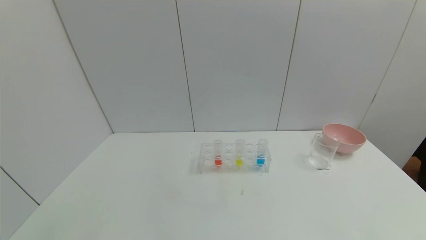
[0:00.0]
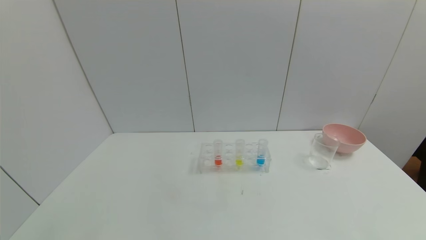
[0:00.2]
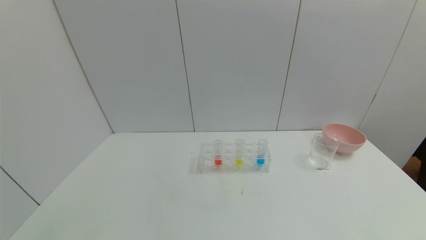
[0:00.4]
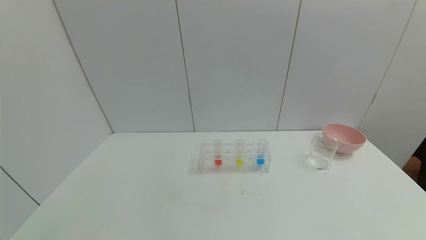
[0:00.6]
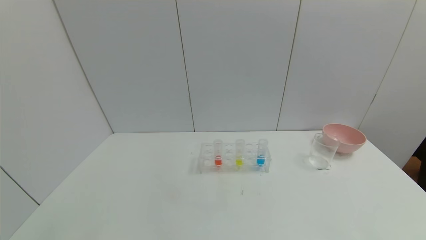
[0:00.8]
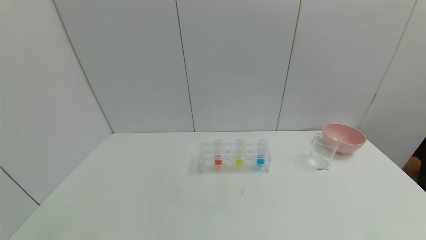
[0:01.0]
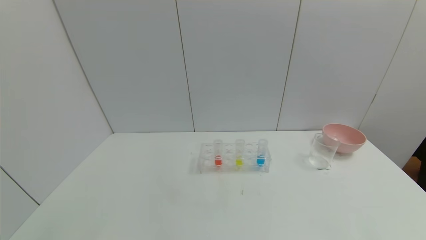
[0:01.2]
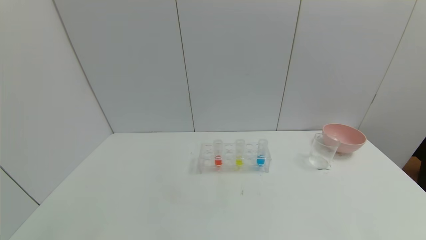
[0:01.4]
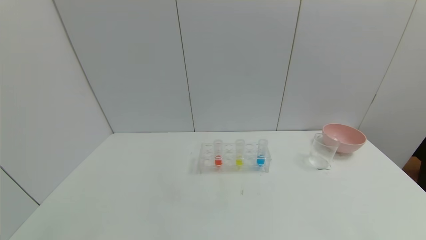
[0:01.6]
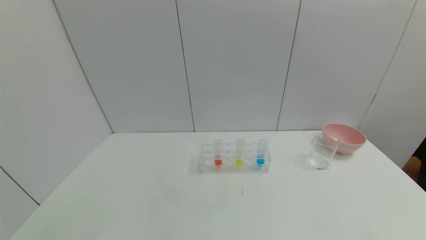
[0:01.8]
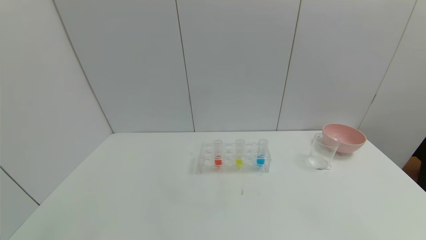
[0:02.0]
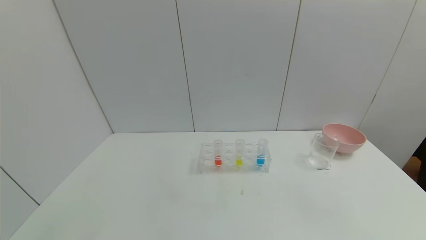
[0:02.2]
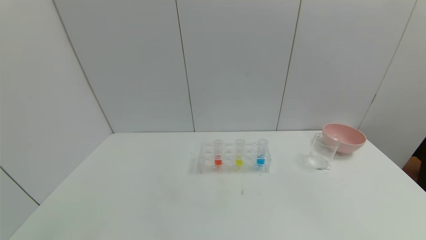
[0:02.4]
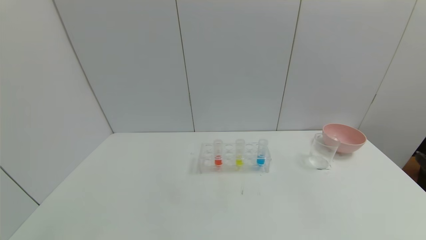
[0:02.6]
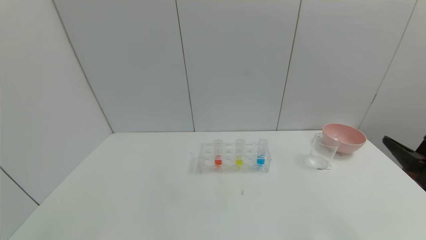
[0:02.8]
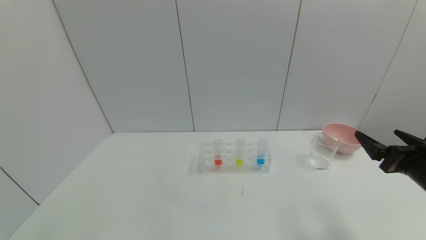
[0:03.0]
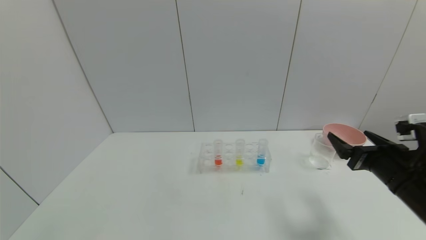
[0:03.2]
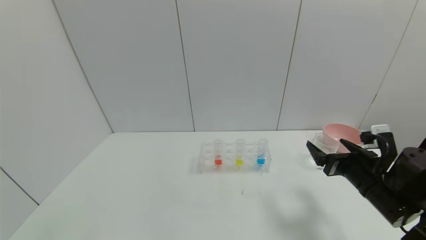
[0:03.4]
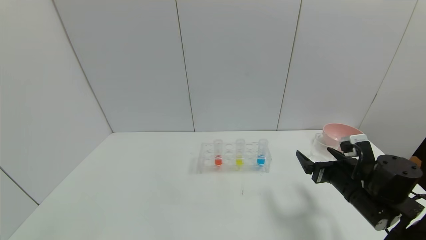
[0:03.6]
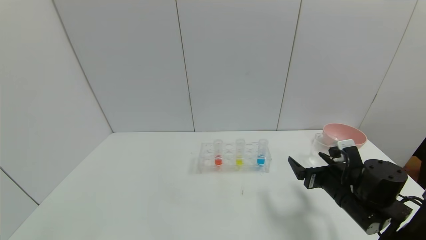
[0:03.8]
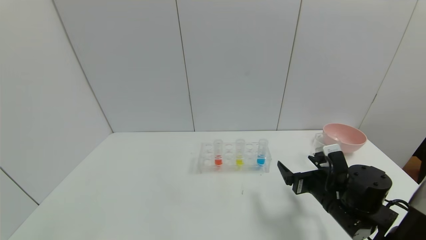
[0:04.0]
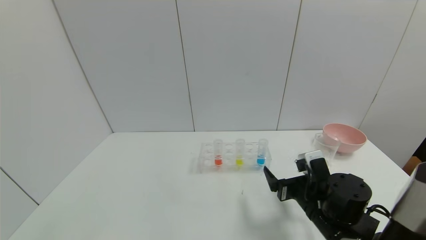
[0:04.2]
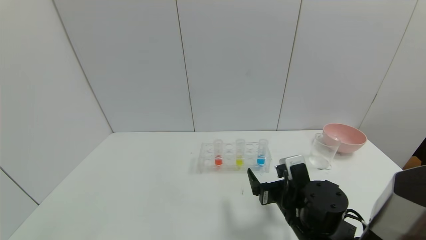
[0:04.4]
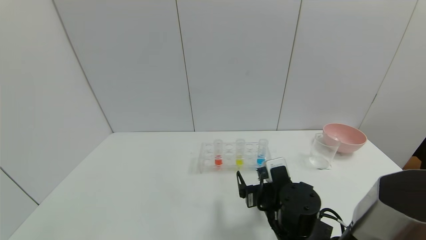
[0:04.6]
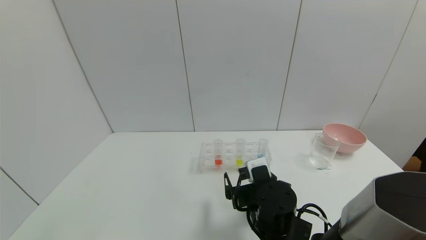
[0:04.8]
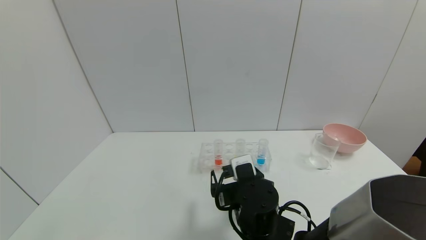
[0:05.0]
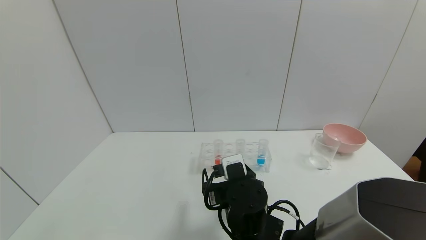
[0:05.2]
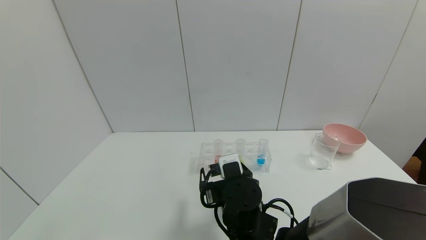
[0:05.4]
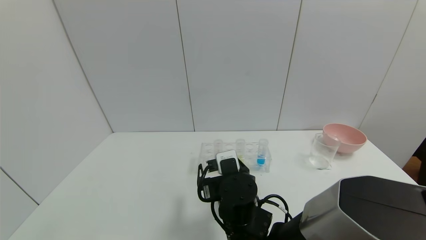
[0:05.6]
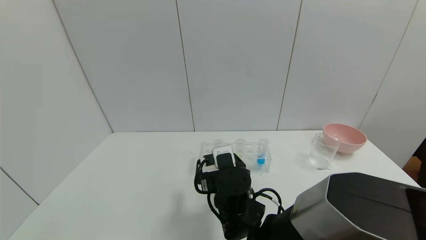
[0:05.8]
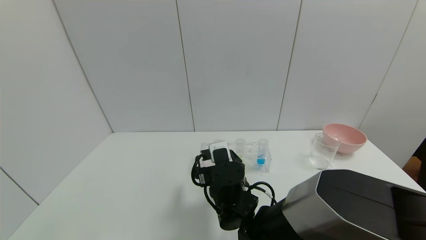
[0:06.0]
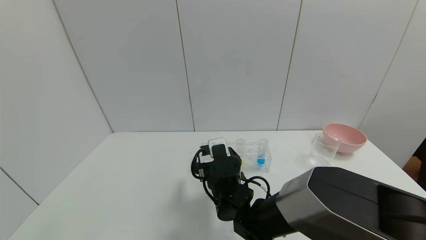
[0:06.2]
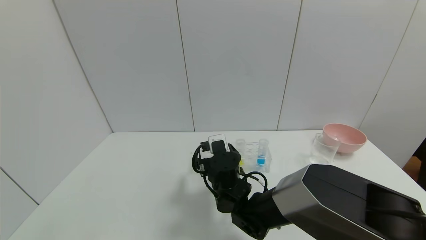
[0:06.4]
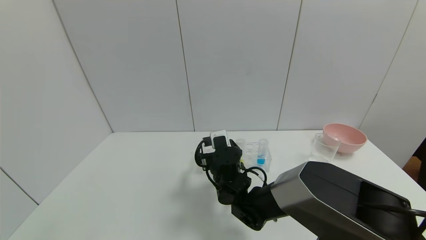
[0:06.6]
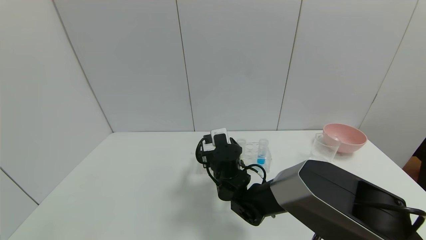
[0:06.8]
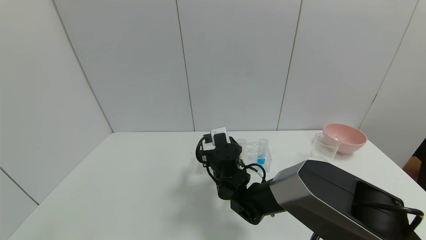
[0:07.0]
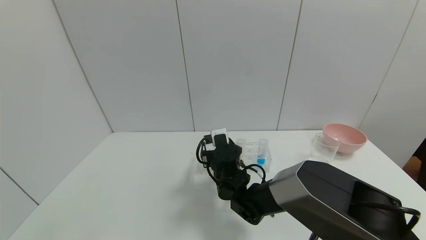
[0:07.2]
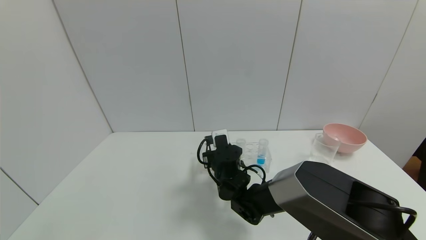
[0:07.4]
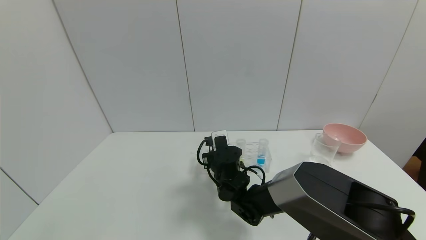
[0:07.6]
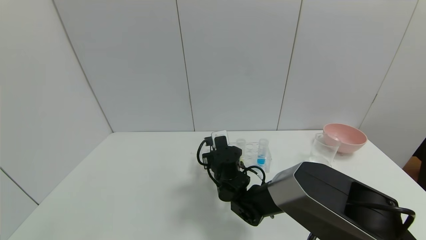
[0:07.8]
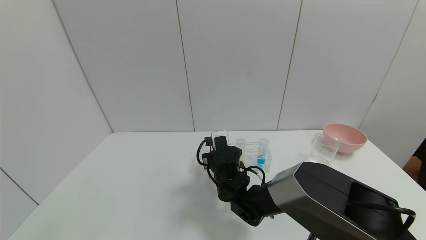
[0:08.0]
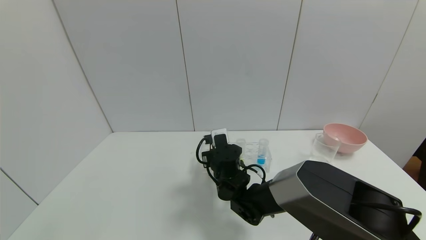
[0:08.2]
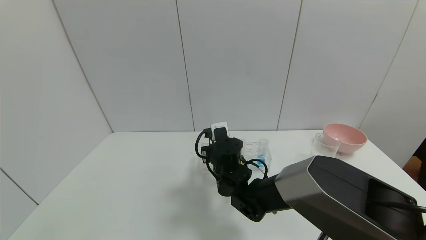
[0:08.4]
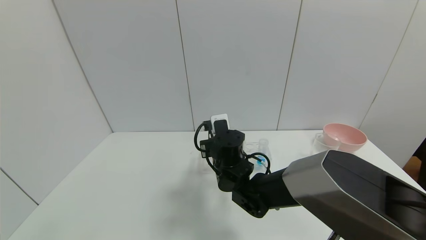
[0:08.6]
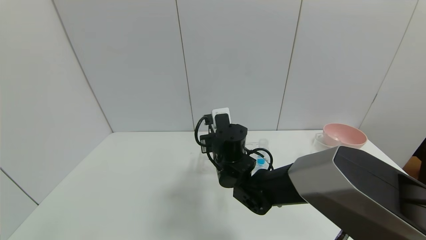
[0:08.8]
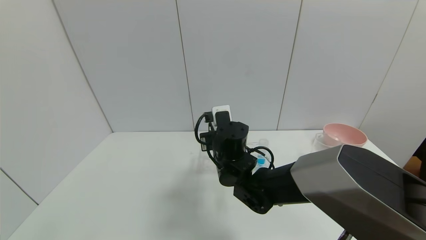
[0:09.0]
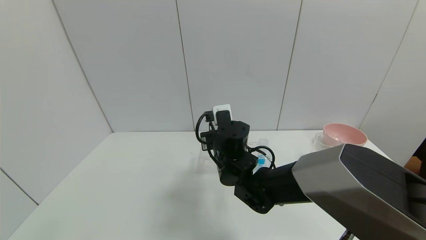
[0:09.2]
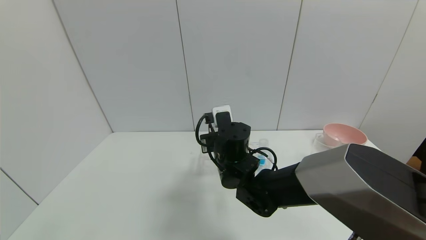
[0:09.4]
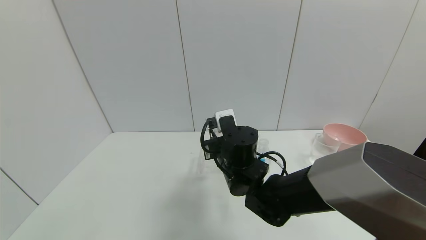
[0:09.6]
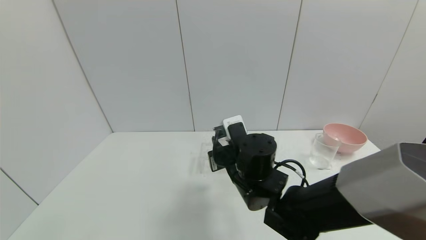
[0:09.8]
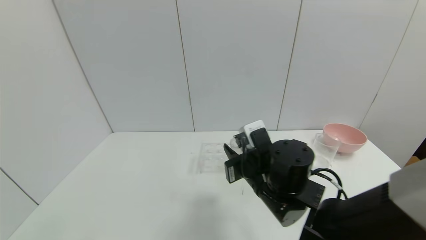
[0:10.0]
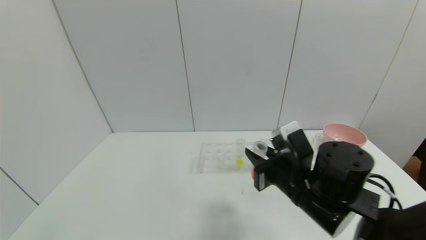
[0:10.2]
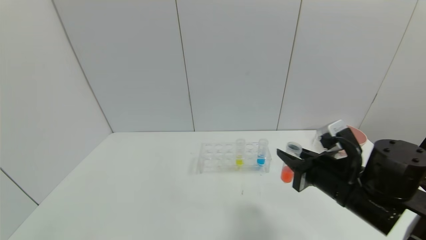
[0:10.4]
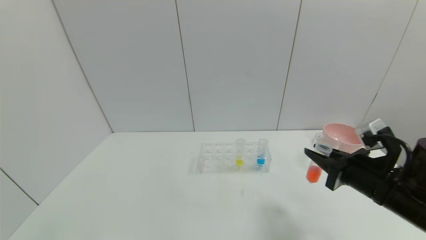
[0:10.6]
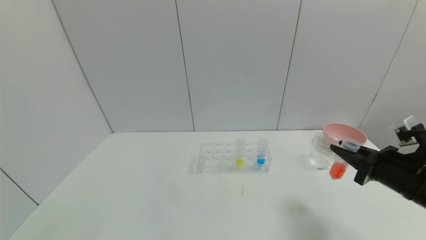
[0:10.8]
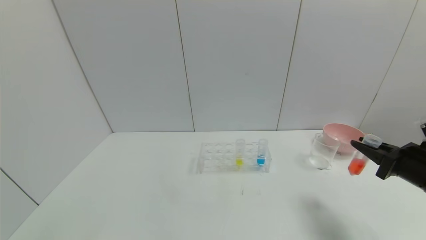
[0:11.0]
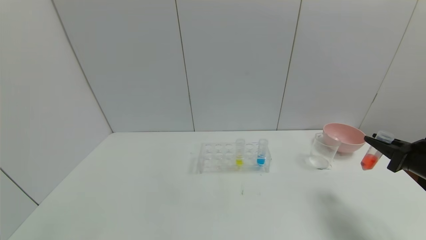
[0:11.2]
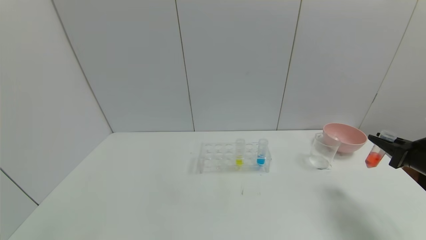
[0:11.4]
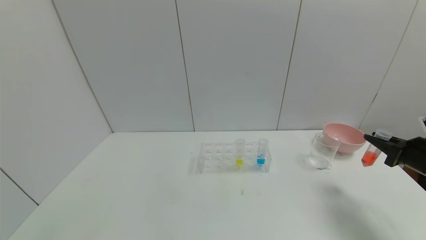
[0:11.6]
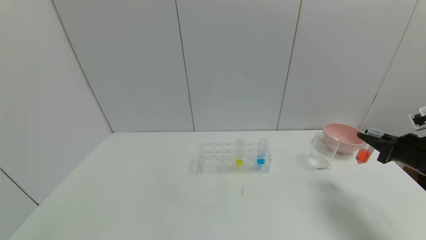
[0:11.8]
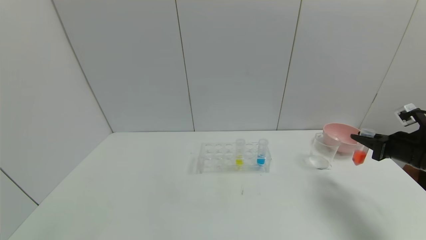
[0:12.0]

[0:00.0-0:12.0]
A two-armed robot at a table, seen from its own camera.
Task of the whole recording: pick up the test tube with red pigment and the test tube with blue pigment by grippers and pour them into the container.
Step, 0:00.0 to 0:09.4: Pick up the test tube containing the red reagent with right gripper.
0:00.0 to 0:01.6: Both grippers stay about where they are.
0:01.6 to 0:03.0: The right gripper shifts about 25 cm forward.
0:03.0 to 0:04.4: The right gripper travels to the left and downward by some 20 cm.
0:04.4 to 0:06.0: The right gripper goes approximately 15 cm to the left.
0:06.0 to 0:07.6: The right gripper is displaced forward by about 5 cm, and closes up.
0:07.6 to 0:09.0: The right gripper heads upward, covering roughly 10 cm.
0:09.0 to 0:10.4: The right gripper heads to the right and backward, covering about 25 cm.
0:10.4 to 0:12.0: The right gripper moves to the right, some 20 cm.

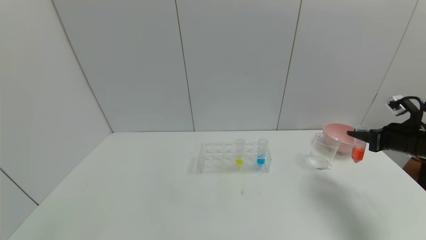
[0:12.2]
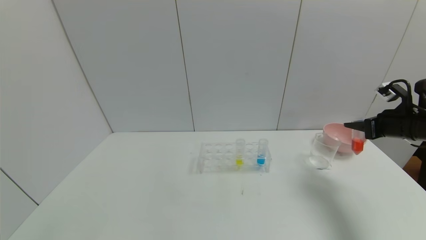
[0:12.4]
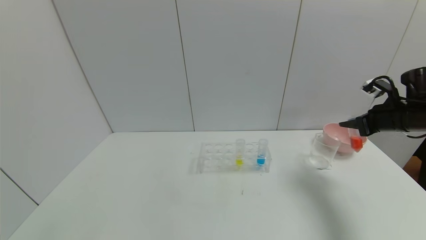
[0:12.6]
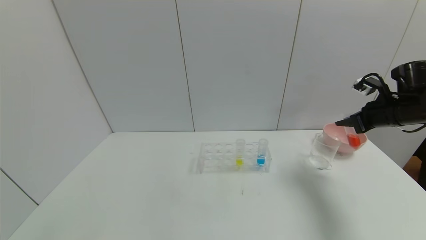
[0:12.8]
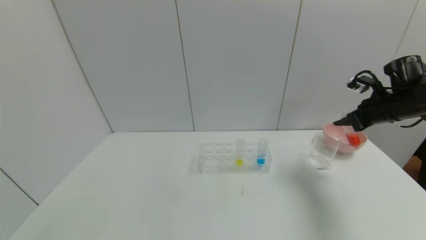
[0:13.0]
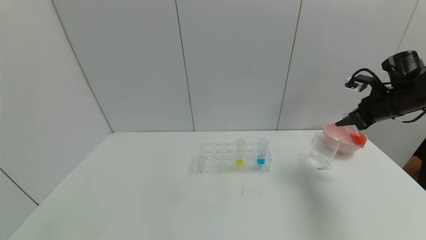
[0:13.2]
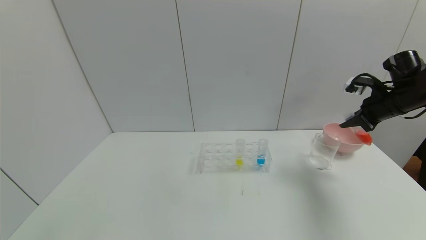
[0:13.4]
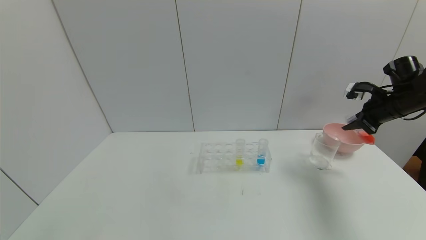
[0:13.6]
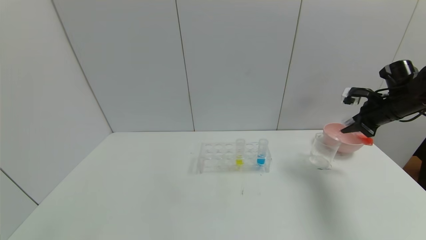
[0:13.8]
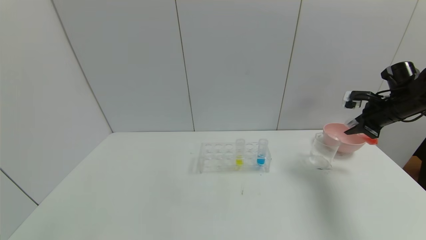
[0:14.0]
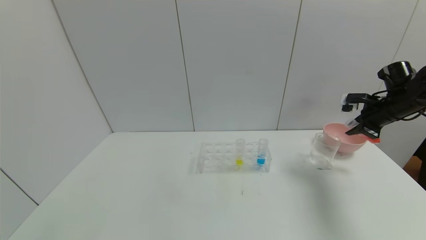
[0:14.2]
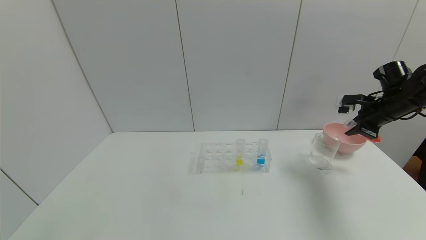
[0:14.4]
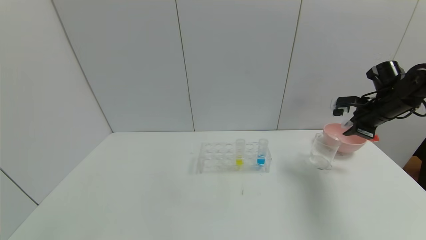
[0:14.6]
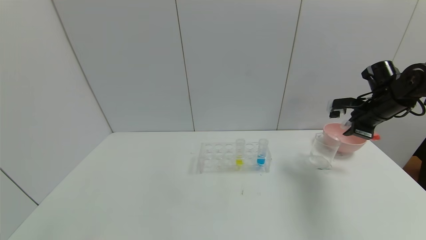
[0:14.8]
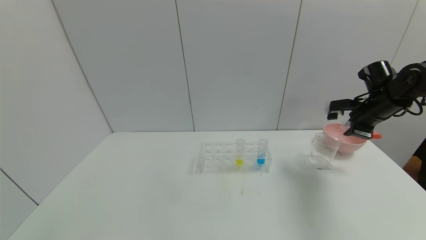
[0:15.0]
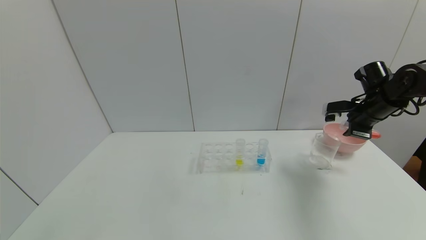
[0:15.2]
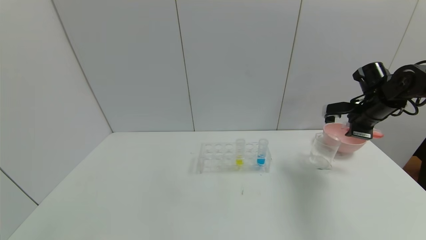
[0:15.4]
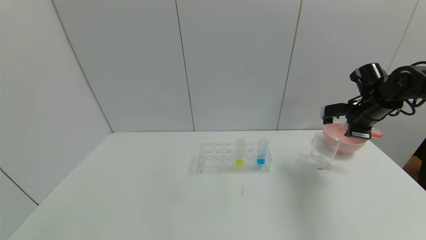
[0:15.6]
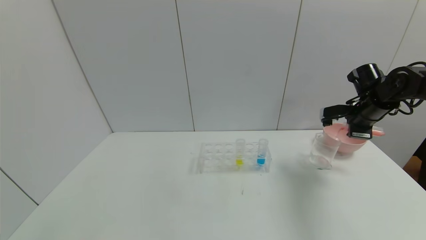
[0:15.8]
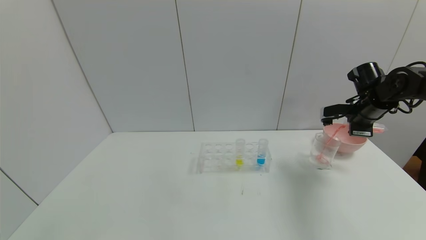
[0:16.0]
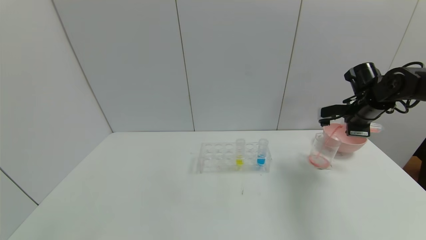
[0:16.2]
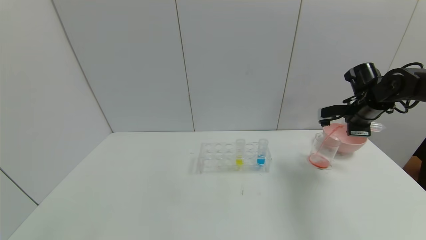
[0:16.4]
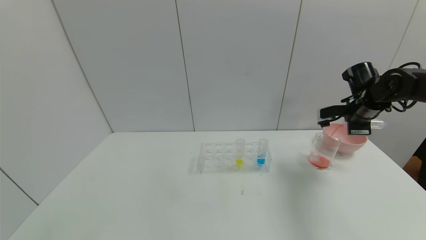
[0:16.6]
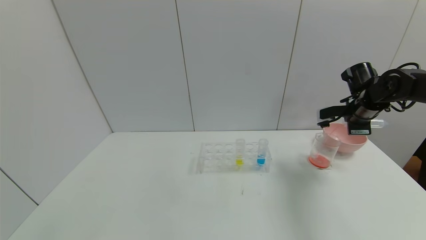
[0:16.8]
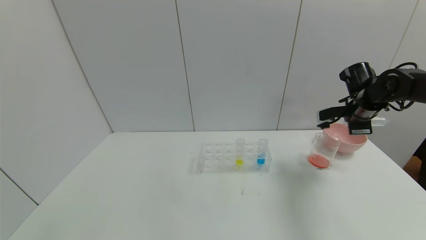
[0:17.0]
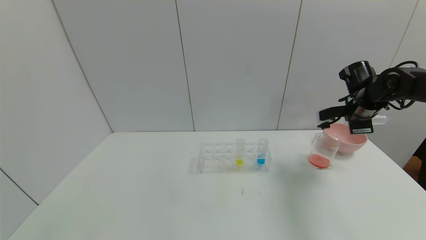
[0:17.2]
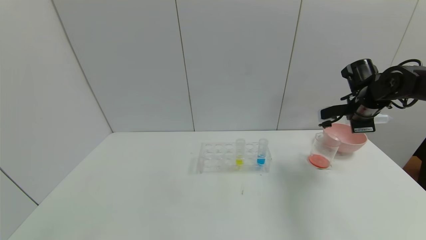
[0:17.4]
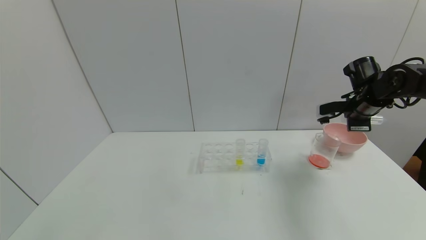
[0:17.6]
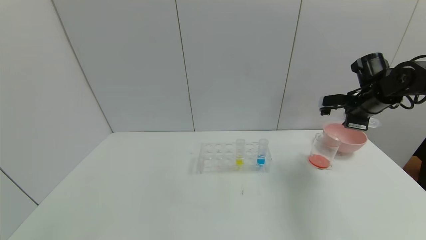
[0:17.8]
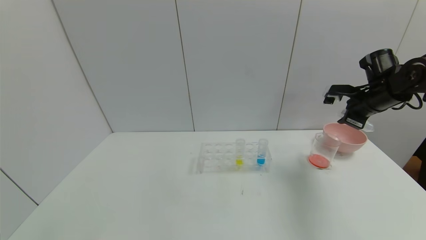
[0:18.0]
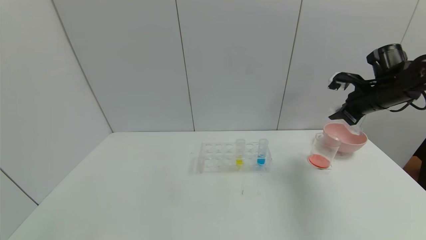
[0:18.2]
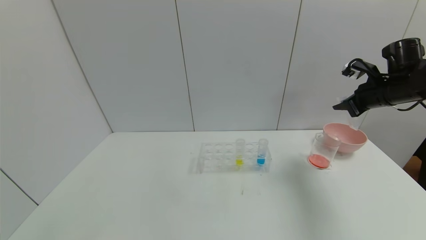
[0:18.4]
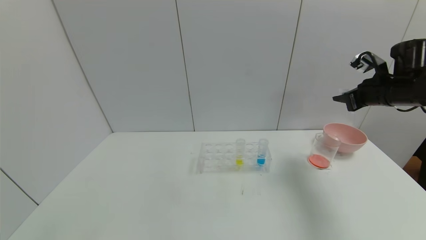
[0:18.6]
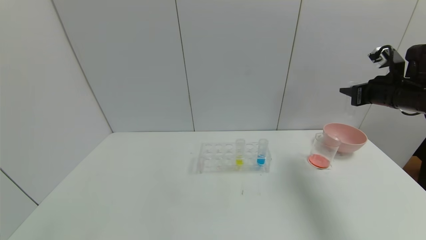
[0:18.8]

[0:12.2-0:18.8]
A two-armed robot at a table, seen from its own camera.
Task of the whole recording: pick up the test tube with red pigment and the test tube with blue pigment by grippers and pour them into the container.
Step, 0:12.2 to 0:17.8: Pour the red reagent into the graduated cylinder with right gripper.
0:12.2 to 0:13.8: The right gripper is displaced forward by approximately 10 cm.
0:17.2 to 0:18.8: The right gripper moves about 5 cm.
